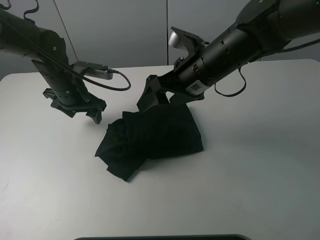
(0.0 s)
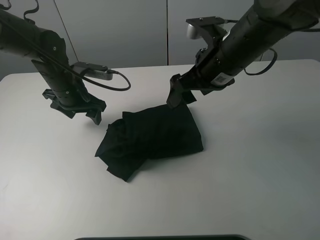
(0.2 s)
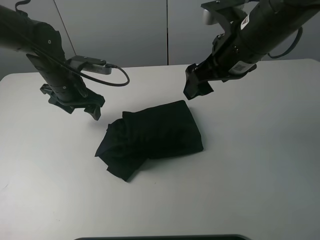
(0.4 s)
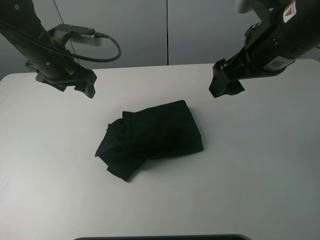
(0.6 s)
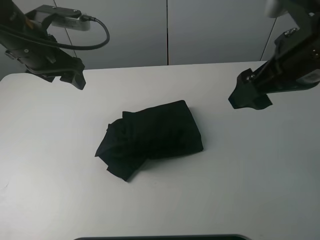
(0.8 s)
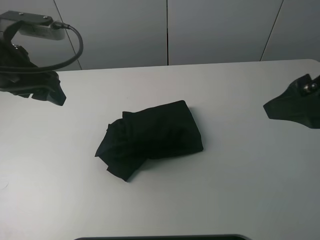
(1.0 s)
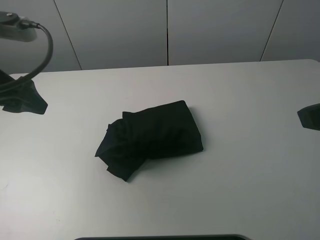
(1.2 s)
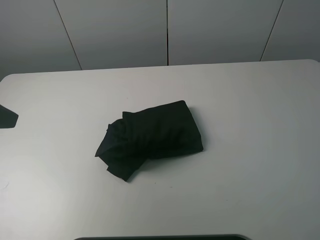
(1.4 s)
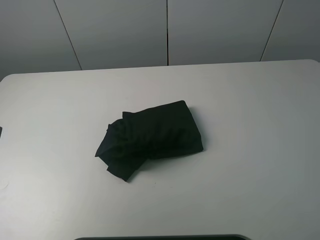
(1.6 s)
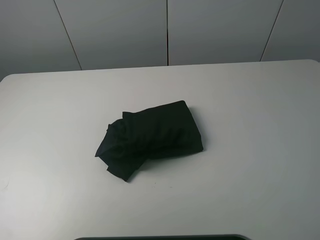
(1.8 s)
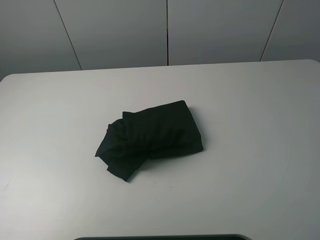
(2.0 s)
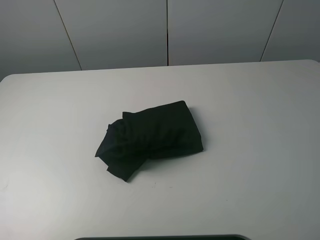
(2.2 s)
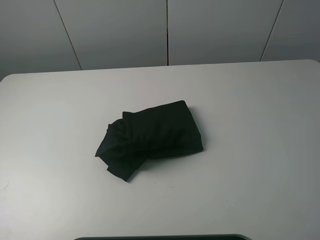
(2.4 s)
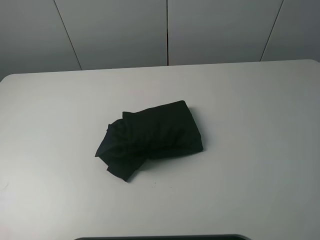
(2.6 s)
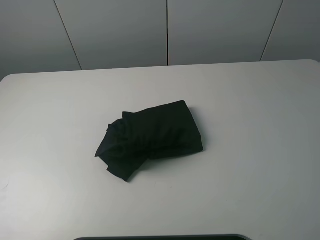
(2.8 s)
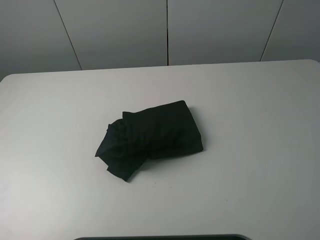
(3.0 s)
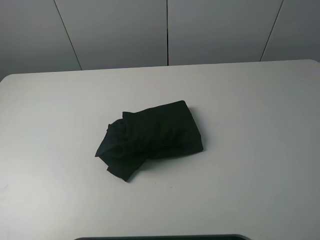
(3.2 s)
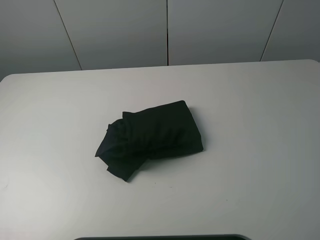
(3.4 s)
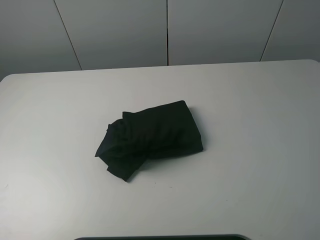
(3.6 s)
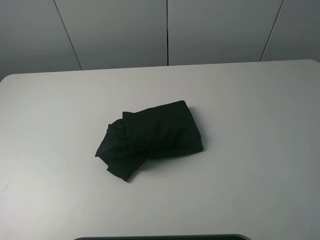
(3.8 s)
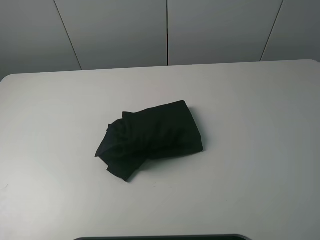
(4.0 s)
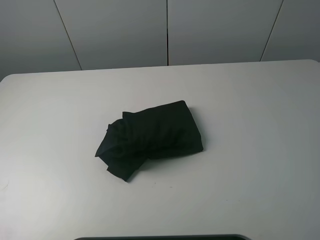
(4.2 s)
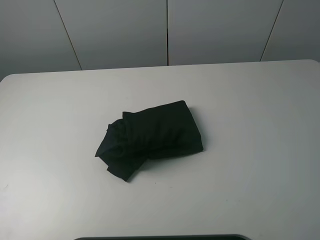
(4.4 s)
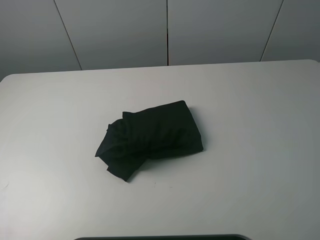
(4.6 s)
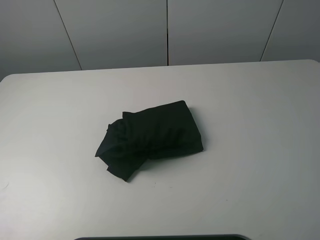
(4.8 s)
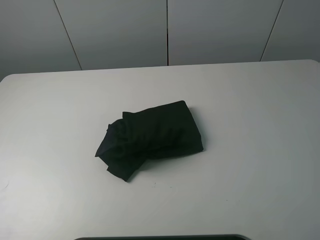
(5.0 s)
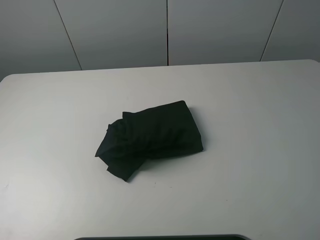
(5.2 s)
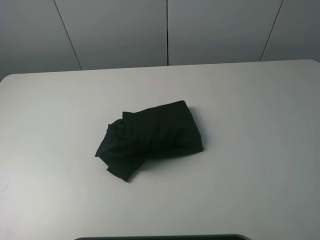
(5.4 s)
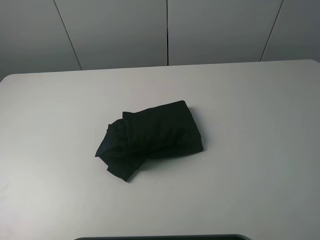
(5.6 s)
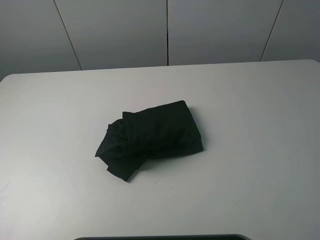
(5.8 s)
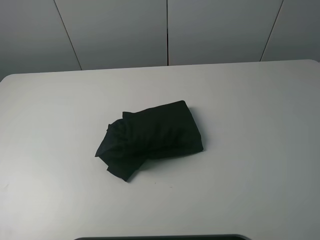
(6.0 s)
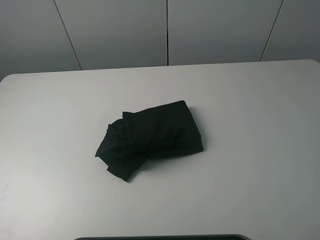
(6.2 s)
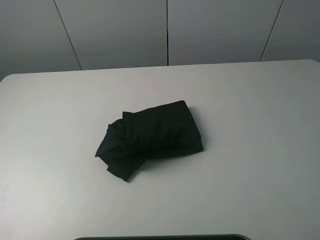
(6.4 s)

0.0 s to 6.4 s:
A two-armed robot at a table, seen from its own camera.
Task of the whole recording: fold the clothes on the table.
0.0 to 1.6 s: The left gripper moves backward, upward and to the left, approximately 30 cm. The right gripper travels backward, to the right and upward by some 35 cm.
4.8 to 6.4 s: Both grippers stay put.
